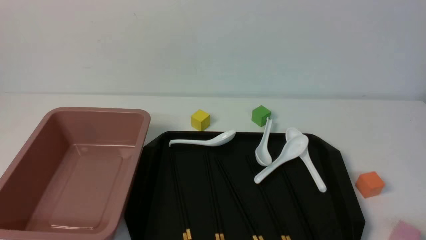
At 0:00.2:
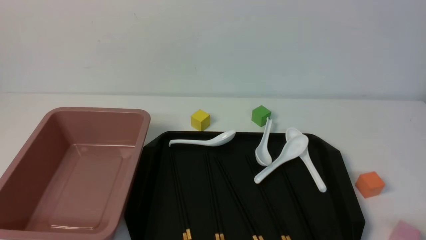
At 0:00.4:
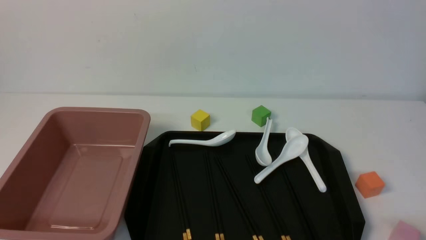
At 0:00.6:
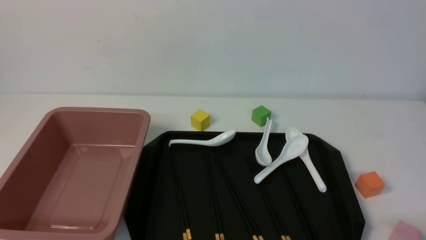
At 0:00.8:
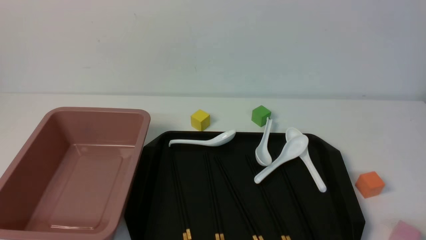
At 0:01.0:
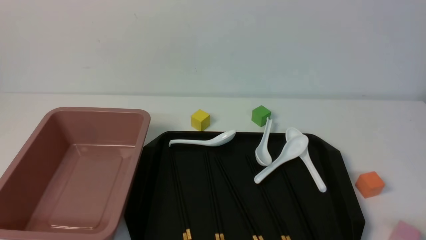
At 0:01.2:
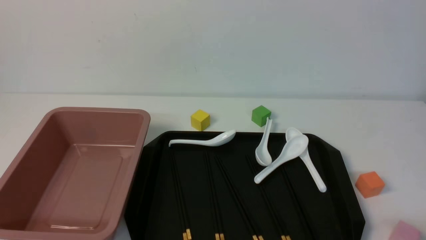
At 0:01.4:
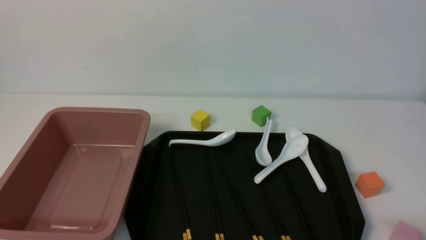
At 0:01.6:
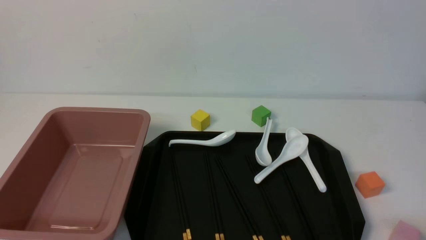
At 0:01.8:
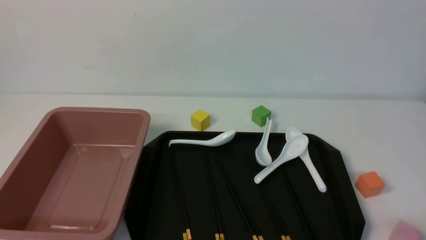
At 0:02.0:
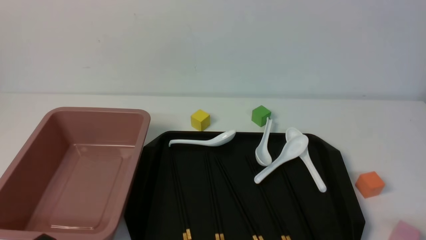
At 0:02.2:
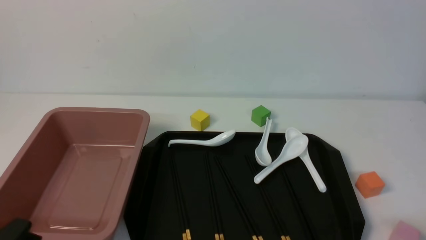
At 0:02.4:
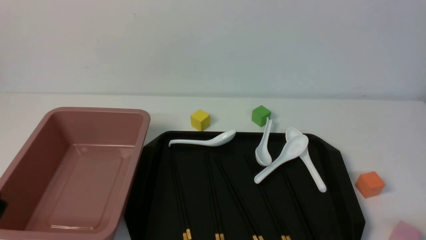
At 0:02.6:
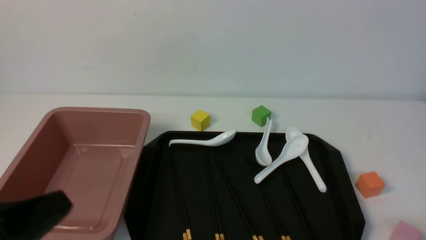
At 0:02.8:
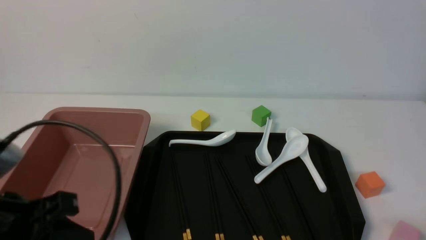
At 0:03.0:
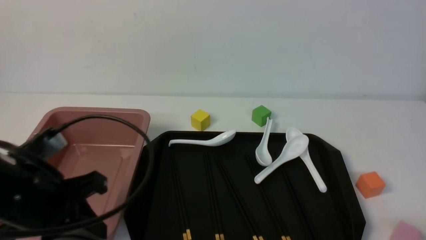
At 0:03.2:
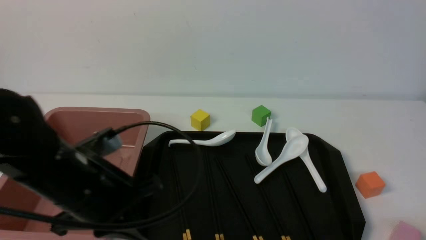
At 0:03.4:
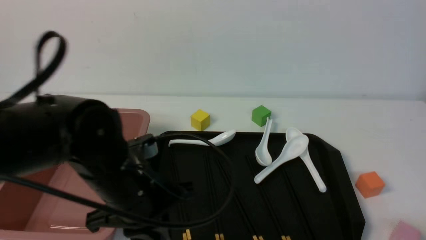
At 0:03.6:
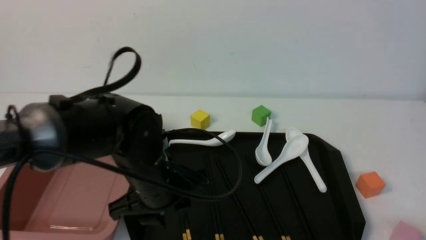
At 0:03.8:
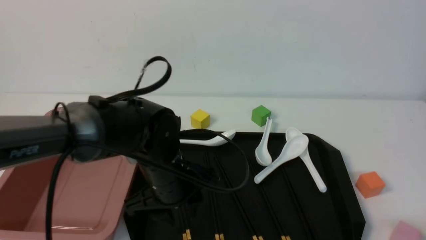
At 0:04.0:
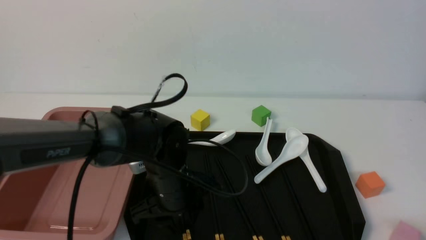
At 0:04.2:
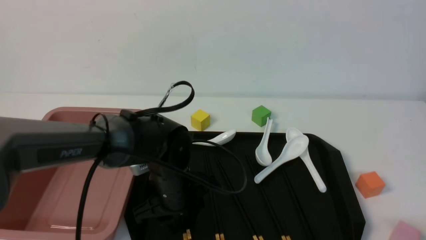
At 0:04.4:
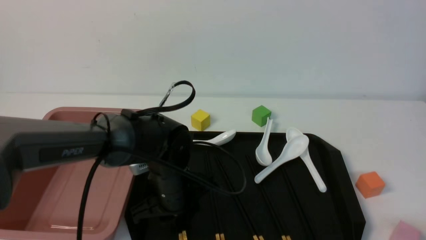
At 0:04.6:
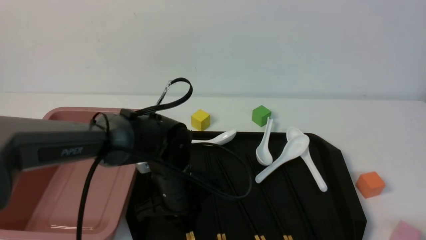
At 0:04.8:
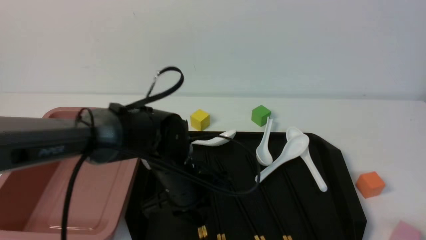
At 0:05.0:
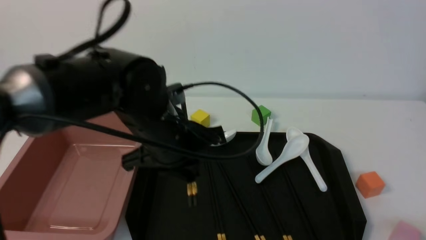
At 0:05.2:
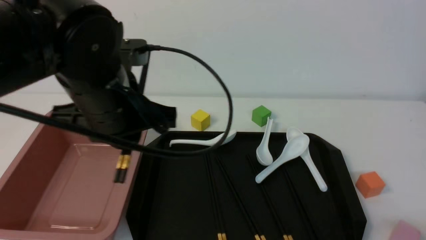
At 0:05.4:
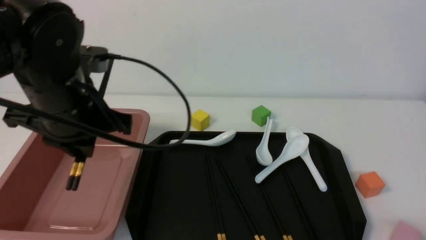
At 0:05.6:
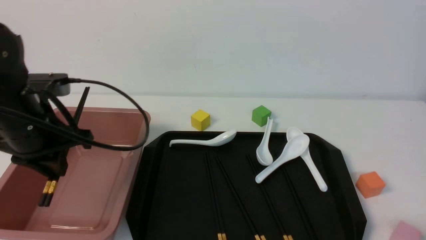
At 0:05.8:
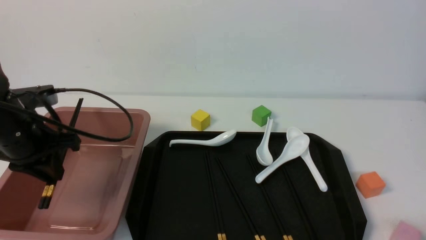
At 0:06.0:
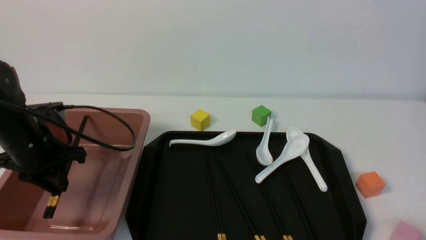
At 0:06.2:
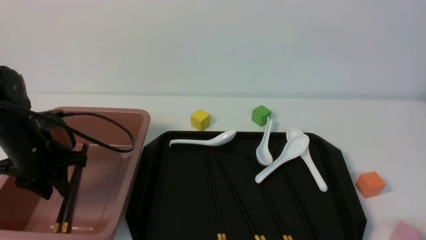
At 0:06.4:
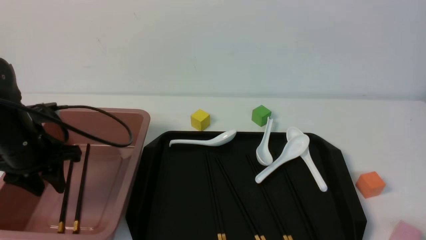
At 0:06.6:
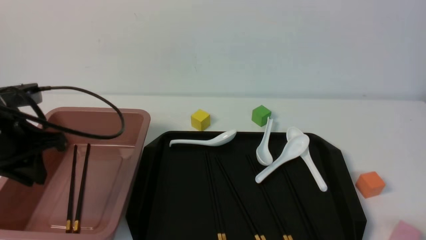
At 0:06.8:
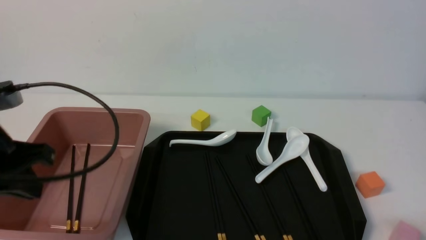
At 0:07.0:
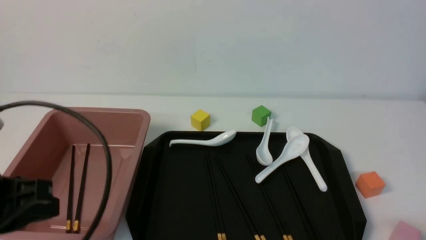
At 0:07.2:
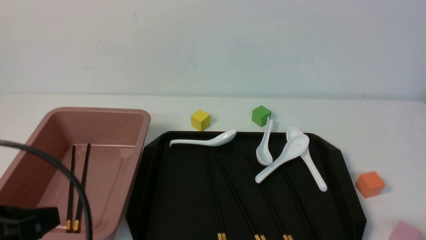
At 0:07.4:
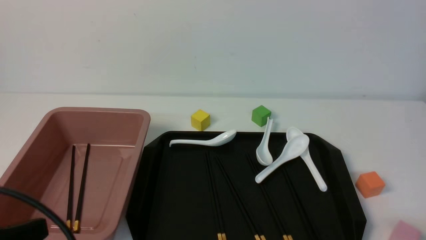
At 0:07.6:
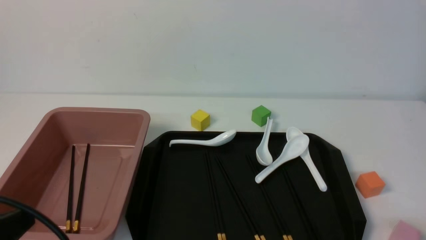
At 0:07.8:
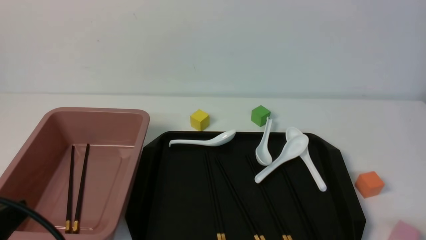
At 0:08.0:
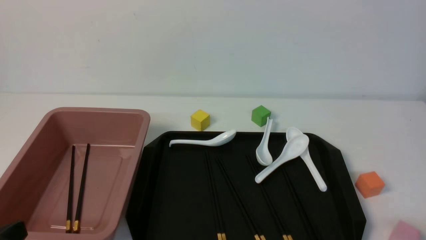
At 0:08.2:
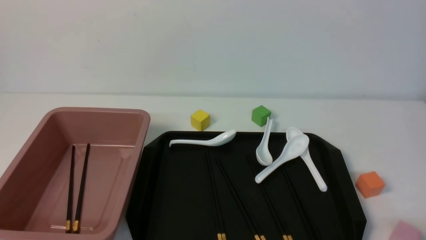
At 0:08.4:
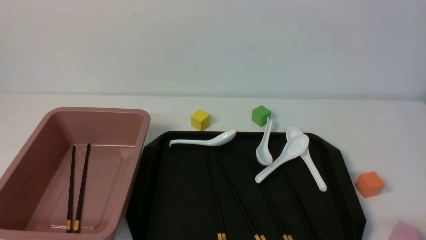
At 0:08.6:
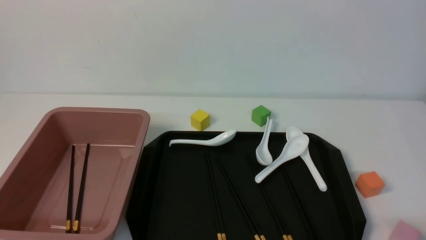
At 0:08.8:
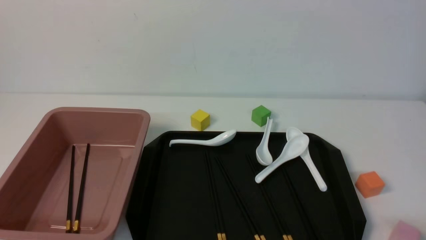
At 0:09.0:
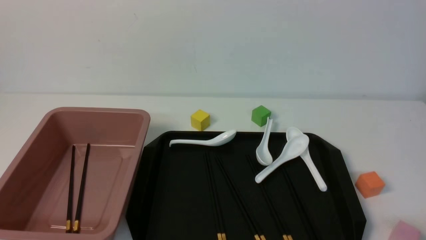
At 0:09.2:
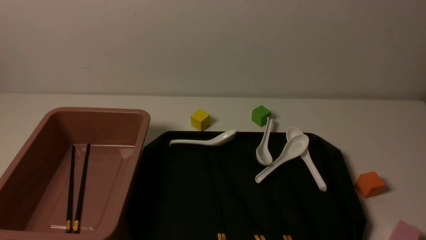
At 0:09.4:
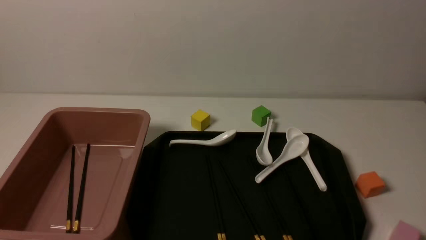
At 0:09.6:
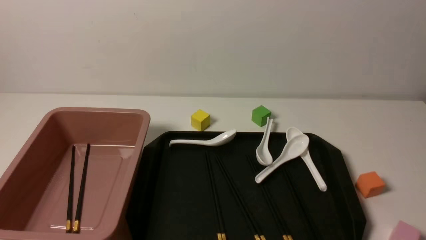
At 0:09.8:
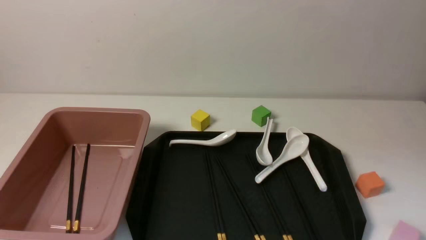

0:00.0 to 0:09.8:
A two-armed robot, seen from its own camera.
Step, 0:00.0 to 0:05.0: use the left arm to grab a pair of chopsticks.
Step, 0:05.2 to 0:06.6: use the left arm to put the chopsticks into the lunch box.
0:01.4 to 0:02.8: The left gripper travels upward and forward by roughly 15 cm, and closes.
0:02.8 to 0:04.2: The left gripper moves forward, to the right and downward, about 25 cm, and opens up.
0:04.2 to 0:05.6: The left gripper shifts approximately 20 cm to the left and upward, and closes up.
0:05.6 to 0:07.0: The left gripper is displaced backward by approximately 15 cm, and closes up.
0:07.0 to 0:08.4: The left gripper is displaced downward and backward by some 15 cm.
0:08.4 to 0:09.8: The two grippers keep their place.

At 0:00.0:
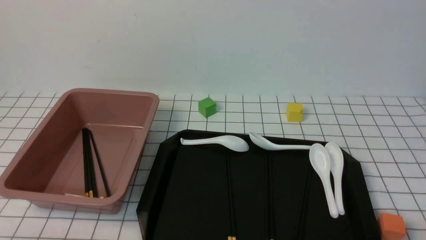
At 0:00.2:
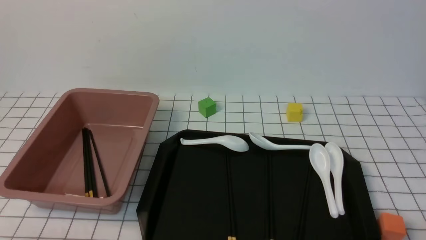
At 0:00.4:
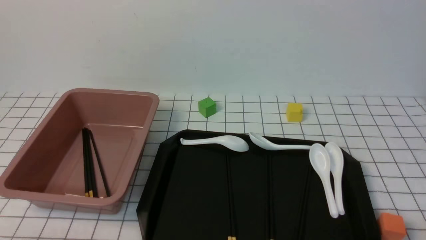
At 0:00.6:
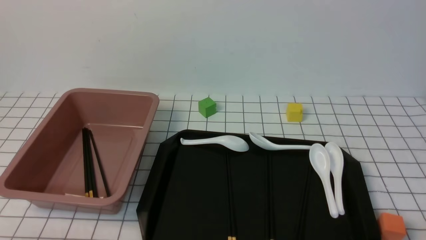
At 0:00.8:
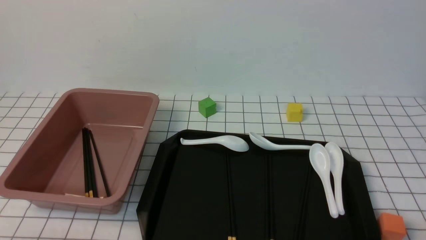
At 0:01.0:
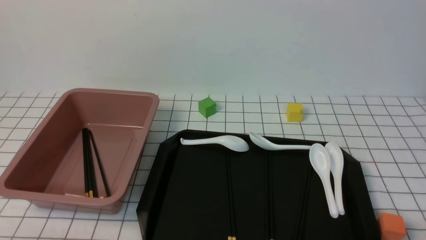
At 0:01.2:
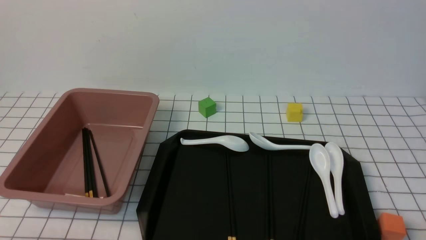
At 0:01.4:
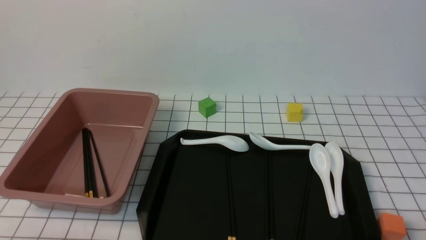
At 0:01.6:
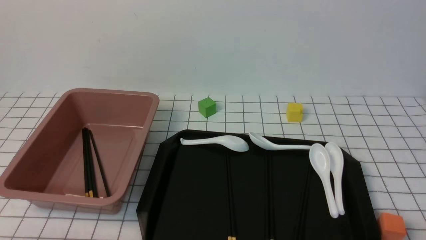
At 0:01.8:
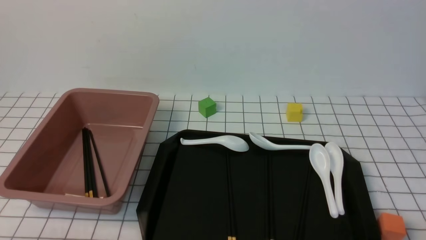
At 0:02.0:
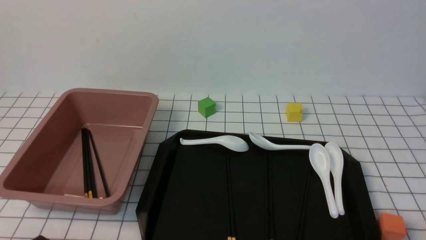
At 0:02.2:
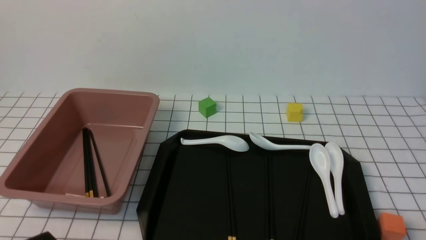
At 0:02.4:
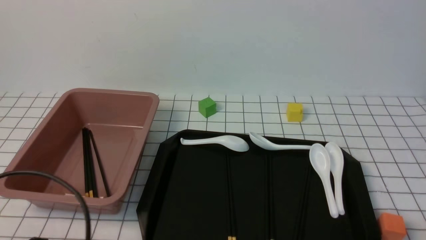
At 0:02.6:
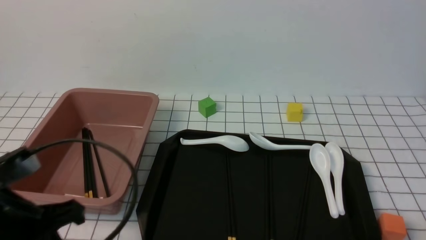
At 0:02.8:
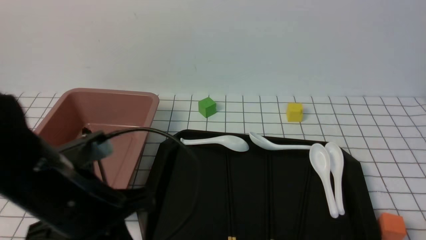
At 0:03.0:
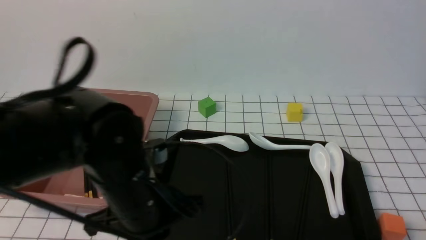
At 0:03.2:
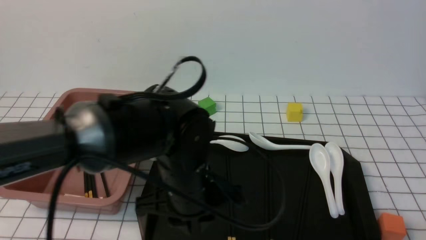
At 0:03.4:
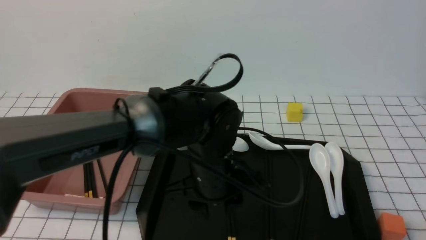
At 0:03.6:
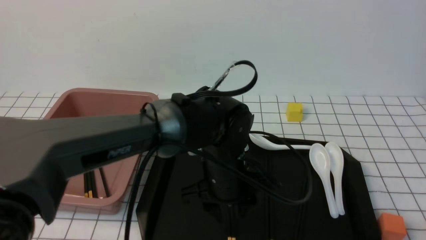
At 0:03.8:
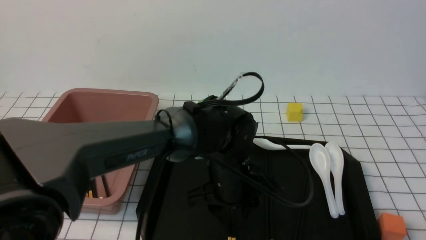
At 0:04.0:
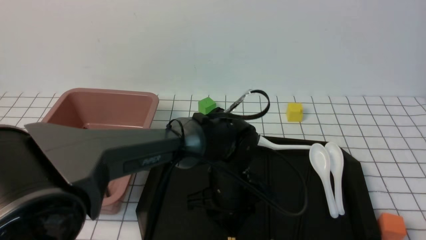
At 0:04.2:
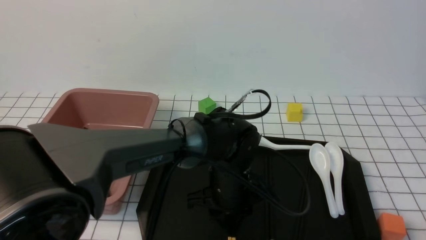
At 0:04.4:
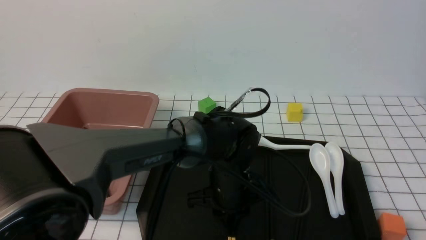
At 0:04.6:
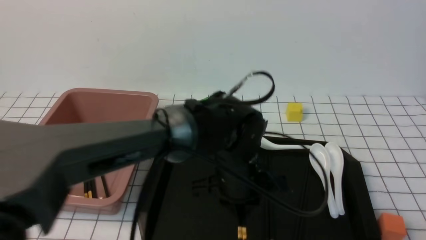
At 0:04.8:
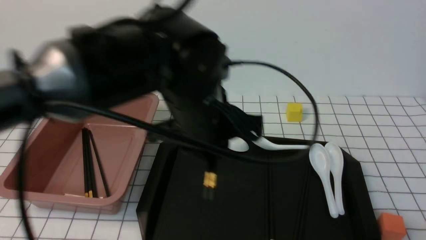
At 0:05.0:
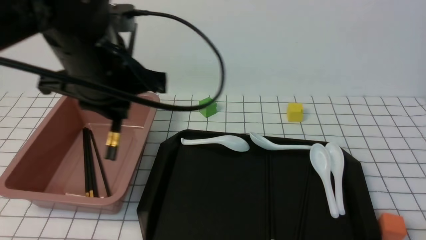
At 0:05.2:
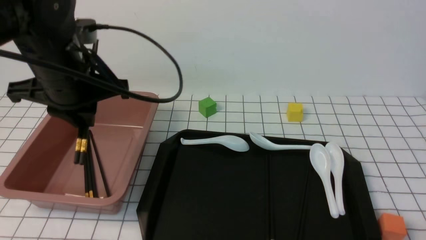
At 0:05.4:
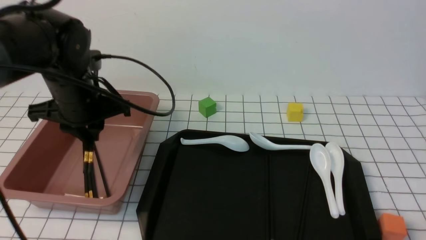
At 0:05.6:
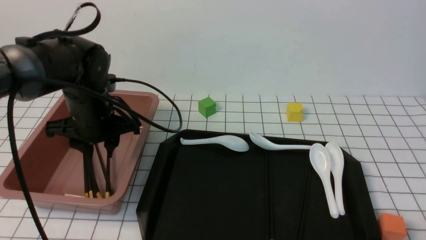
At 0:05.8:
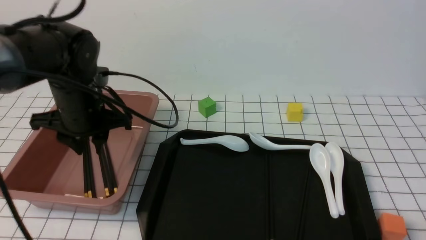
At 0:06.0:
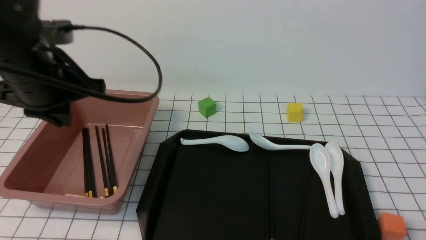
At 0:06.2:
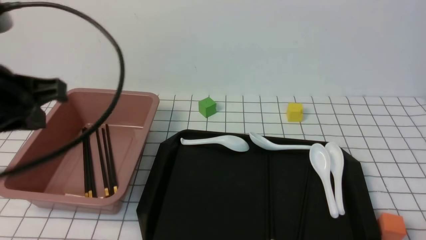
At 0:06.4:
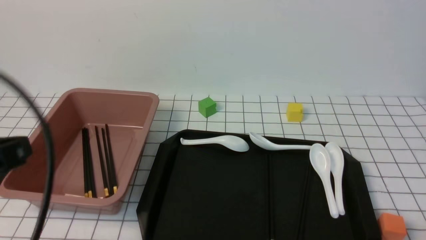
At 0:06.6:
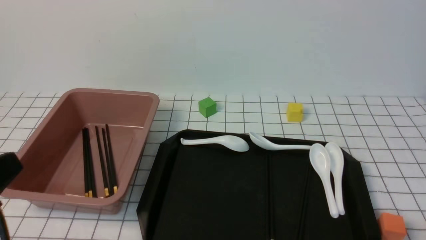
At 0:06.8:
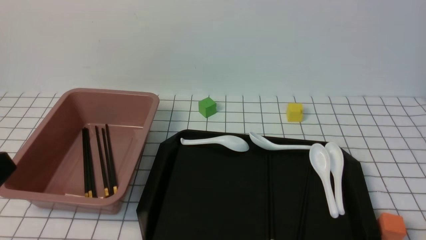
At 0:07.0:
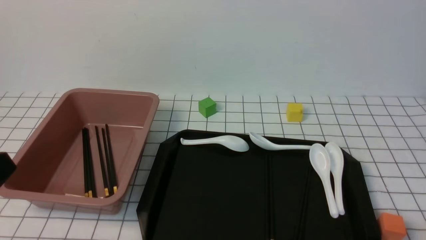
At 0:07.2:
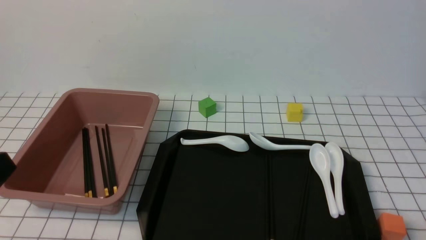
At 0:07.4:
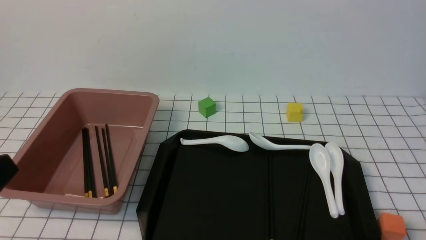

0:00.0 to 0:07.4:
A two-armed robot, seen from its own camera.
Step, 0:00.0 to 0:04.4: use the left arm to grab a pair of chopsticks.
Step, 0:04.6 to 0:05.8: use the left arm to put the chopsticks into the lunch box.
0:01.4 to 0:03.0: The left gripper is displaced forward, to the right and upward by about 20 cm.
0:03.0 to 0:04.4: The left gripper travels to the right, downward and forward by some 20 cm, and opens up.
0:04.4 to 0:06.0: The left gripper shifts about 30 cm to the left and upward.
0:06.0 to 0:07.4: The left gripper moves backward, about 25 cm, and closes its fingers.
